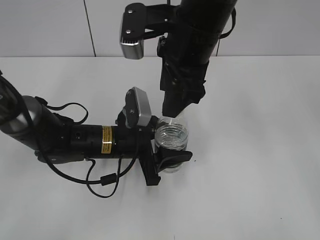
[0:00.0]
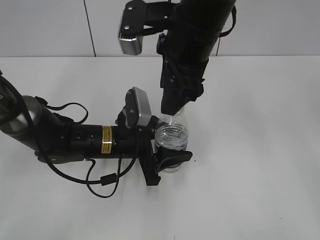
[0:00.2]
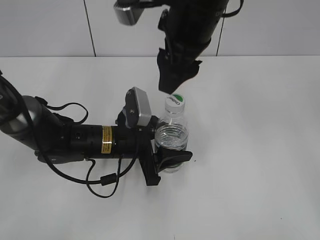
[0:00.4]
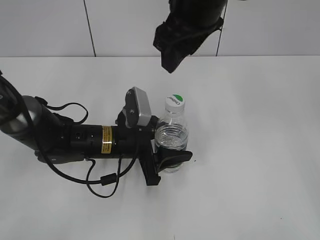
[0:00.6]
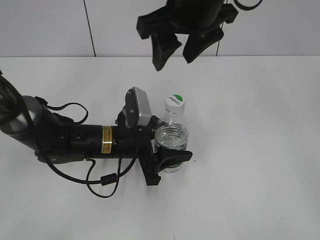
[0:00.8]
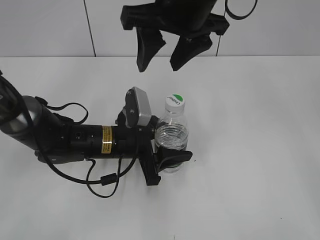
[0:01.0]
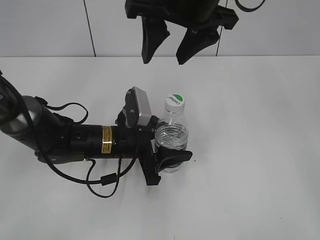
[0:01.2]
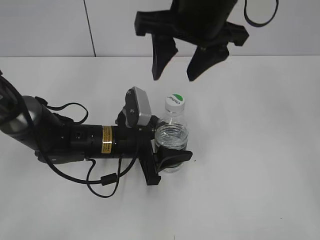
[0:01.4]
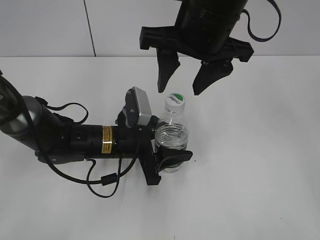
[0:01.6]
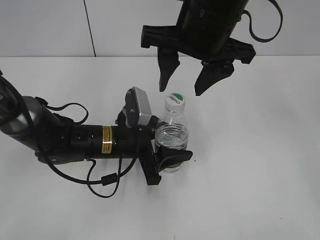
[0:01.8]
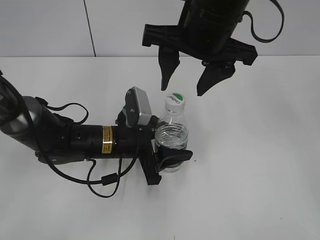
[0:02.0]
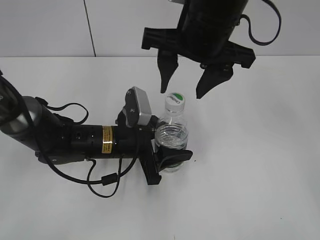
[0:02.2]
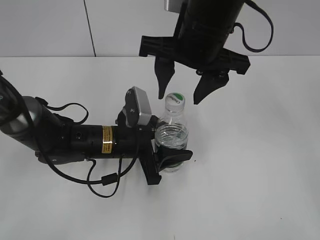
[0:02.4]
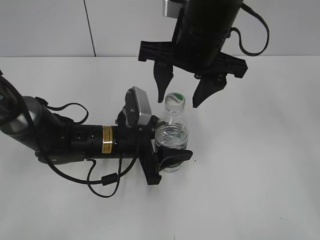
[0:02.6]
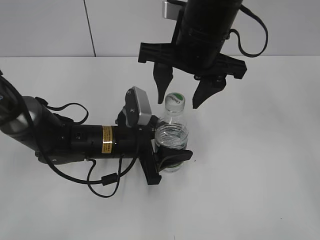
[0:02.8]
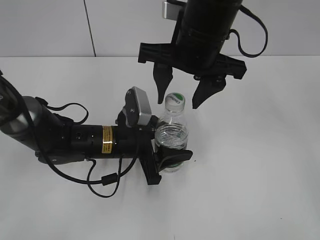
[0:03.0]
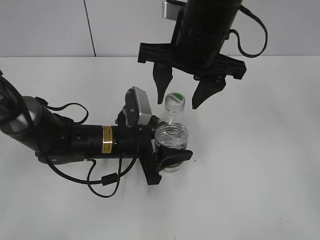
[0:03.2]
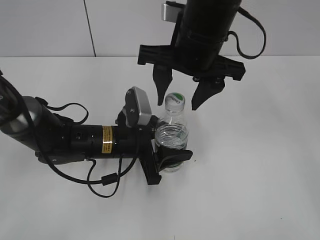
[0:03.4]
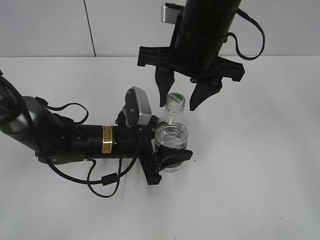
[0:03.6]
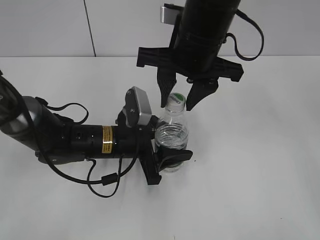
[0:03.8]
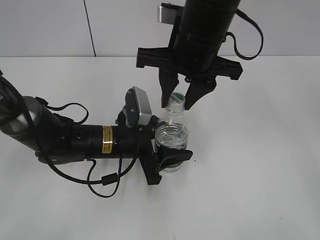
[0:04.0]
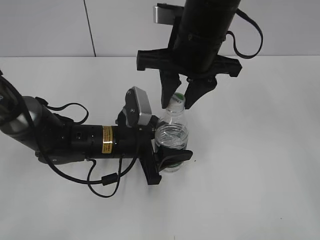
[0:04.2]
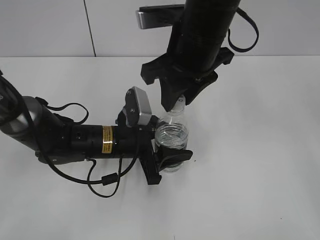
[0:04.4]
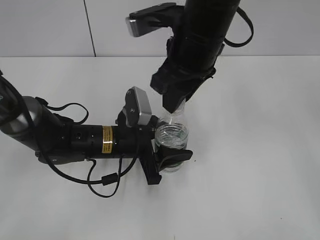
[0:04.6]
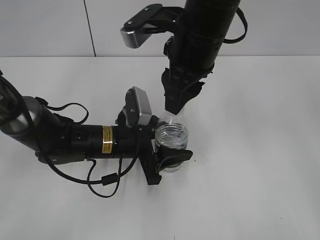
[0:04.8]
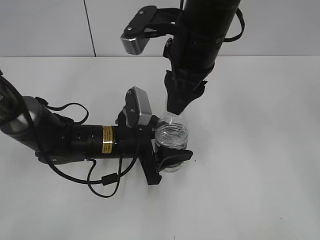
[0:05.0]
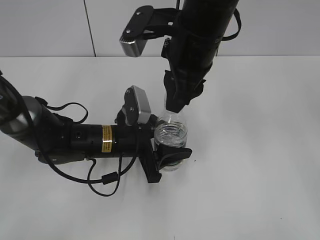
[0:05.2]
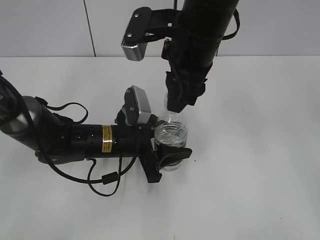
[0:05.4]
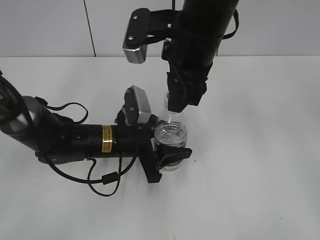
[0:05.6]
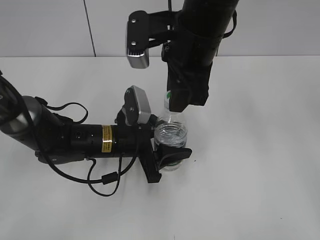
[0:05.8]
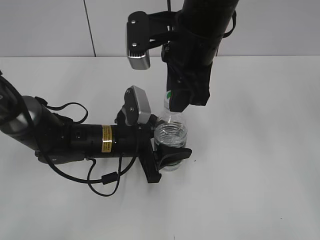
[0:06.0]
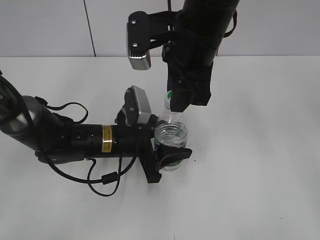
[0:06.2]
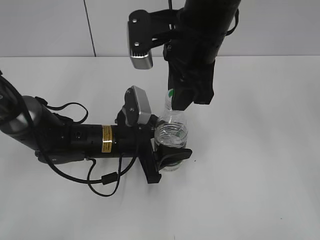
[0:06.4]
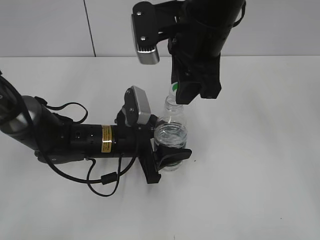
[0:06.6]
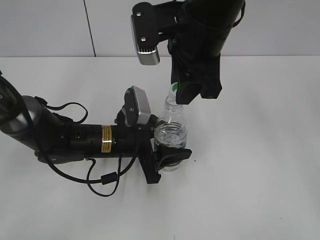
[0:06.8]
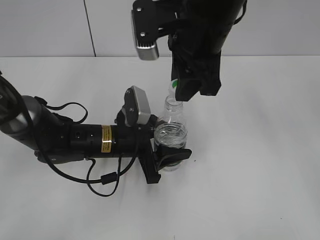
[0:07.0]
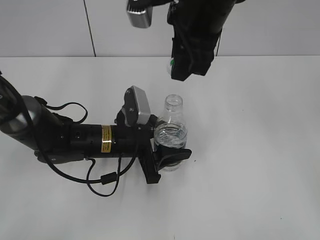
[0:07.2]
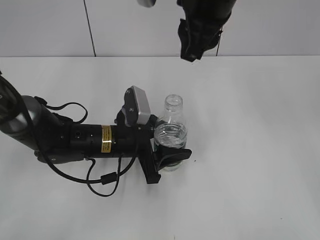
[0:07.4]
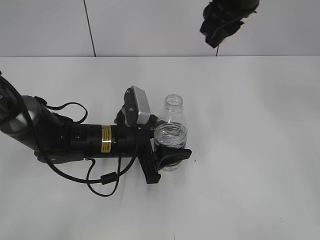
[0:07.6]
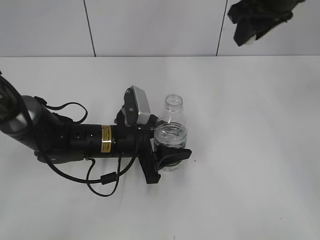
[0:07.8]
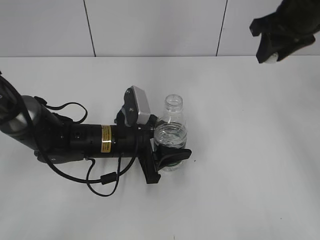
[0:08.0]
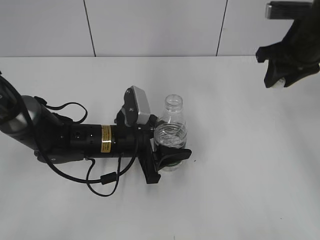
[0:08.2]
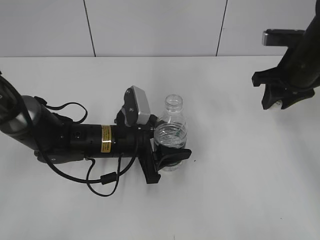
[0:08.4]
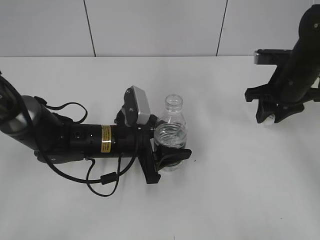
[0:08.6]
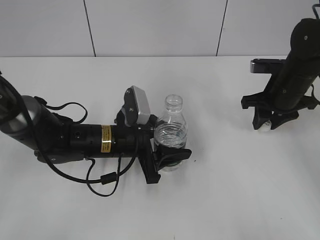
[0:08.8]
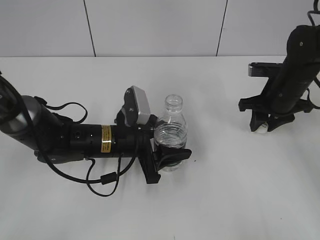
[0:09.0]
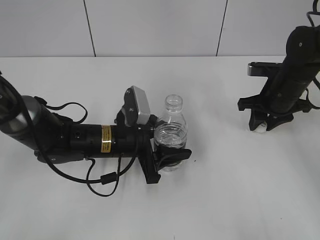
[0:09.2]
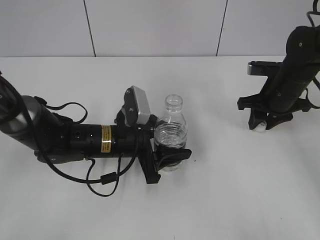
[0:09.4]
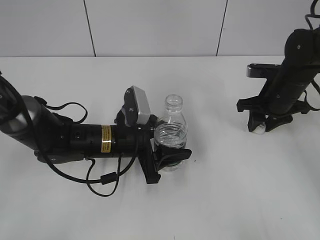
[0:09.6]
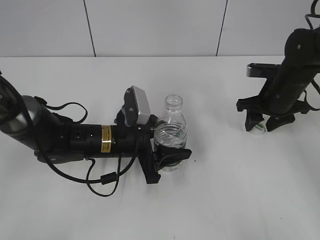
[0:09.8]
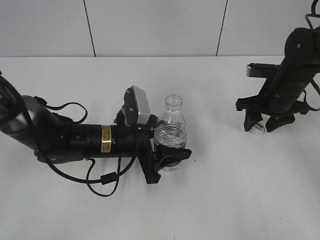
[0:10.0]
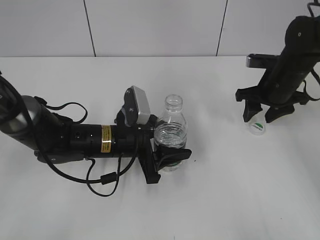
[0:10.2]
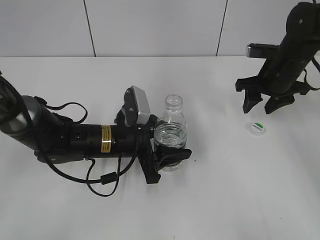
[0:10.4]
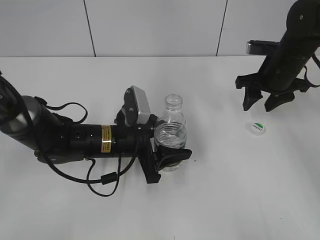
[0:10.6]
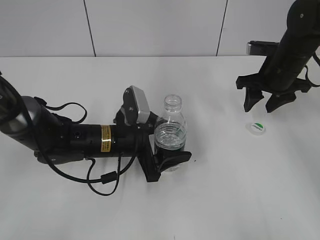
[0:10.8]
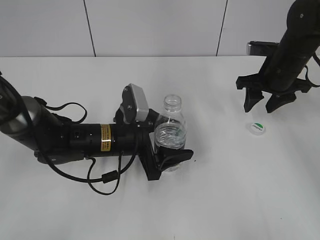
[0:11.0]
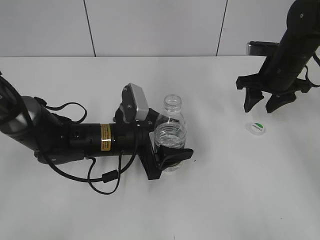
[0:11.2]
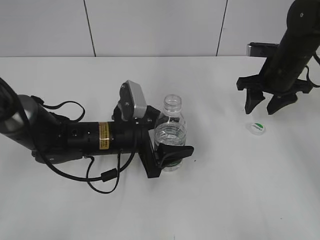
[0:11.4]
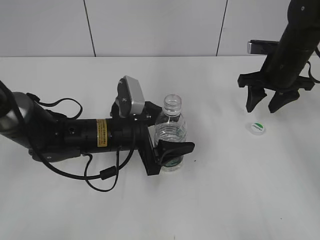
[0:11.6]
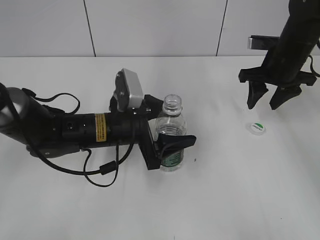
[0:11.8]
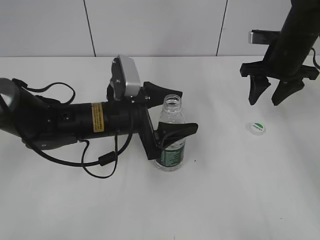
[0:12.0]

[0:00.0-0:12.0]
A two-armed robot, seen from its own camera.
Step, 0:00.0 to 0:07.0: Unscrew the bottle cap with the right gripper while holding the bottle with the left gripper.
Step, 0:07.2 to 0:10.2: Place the bottle cap on the table with the right gripper.
0:01.6 to 0:03.0: The grippers make only small movements.
0:03.0 to 0:04.4: The right gripper closes up.
0:06.0 to 0:07.6: The right gripper shifts about 10 cm upward and to the right.
0:07.6 to 0:09.0: The right gripper goes some 25 cm downward and to the right.
0:09.0 to 0:10.4: The right gripper opens up.
0:10.4 to 0:12.0: The left gripper is displaced upward by about 5 cm, and opens.

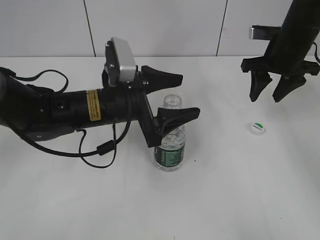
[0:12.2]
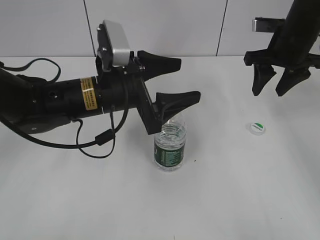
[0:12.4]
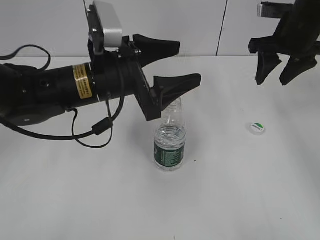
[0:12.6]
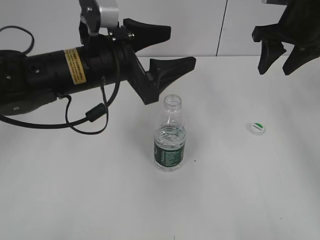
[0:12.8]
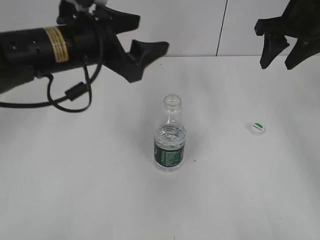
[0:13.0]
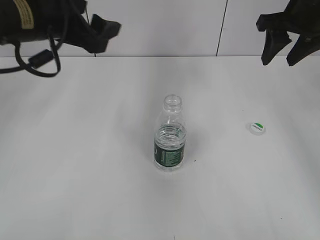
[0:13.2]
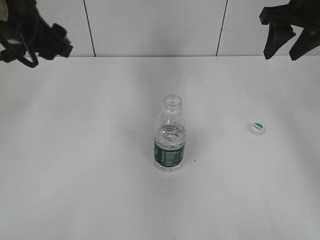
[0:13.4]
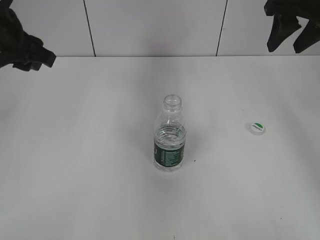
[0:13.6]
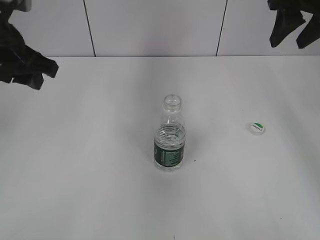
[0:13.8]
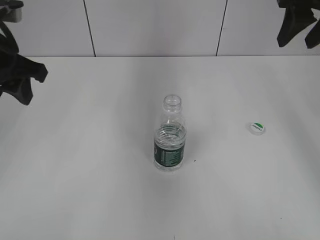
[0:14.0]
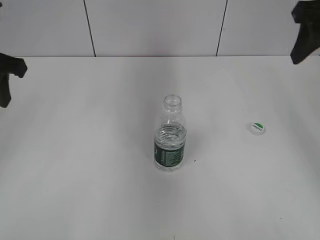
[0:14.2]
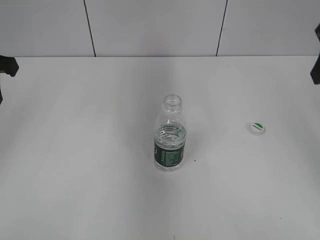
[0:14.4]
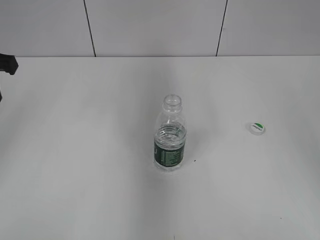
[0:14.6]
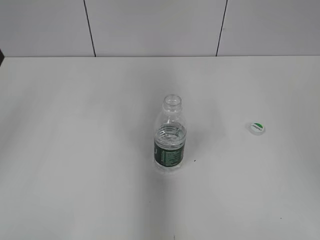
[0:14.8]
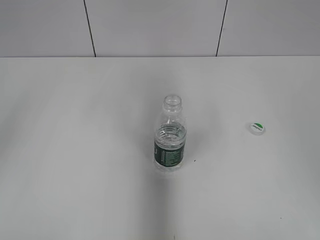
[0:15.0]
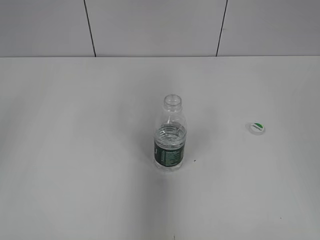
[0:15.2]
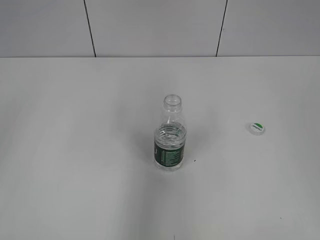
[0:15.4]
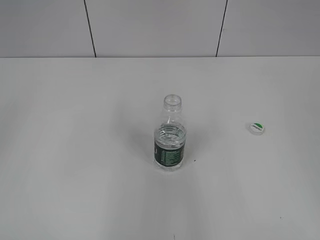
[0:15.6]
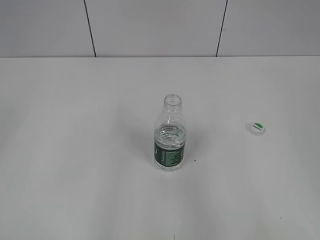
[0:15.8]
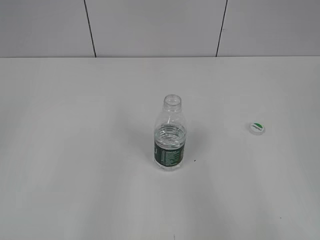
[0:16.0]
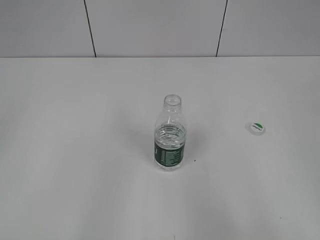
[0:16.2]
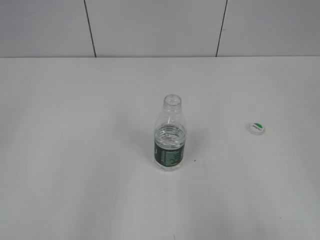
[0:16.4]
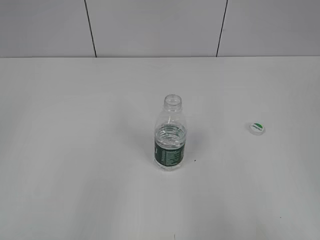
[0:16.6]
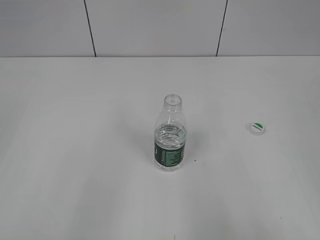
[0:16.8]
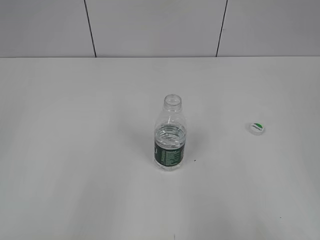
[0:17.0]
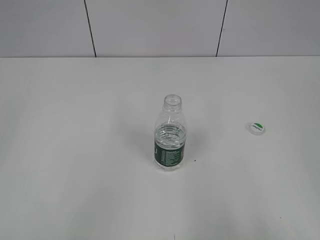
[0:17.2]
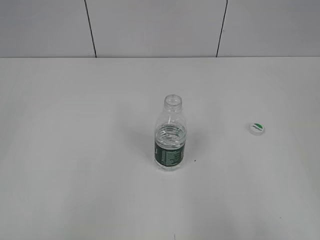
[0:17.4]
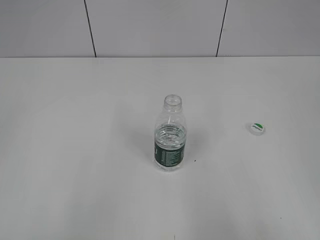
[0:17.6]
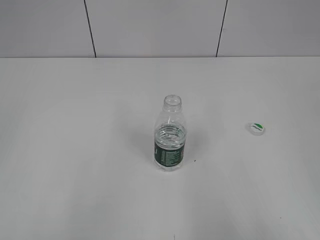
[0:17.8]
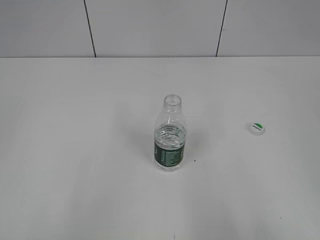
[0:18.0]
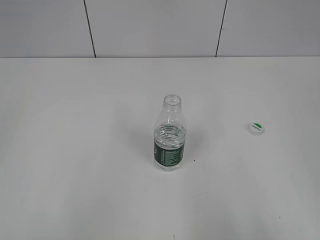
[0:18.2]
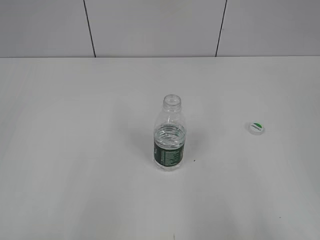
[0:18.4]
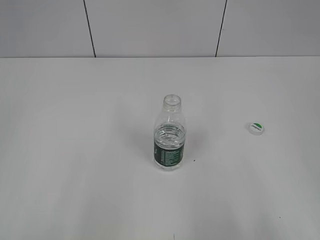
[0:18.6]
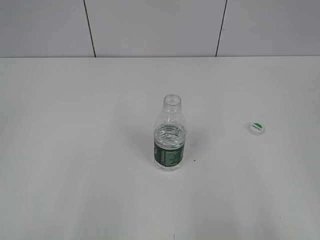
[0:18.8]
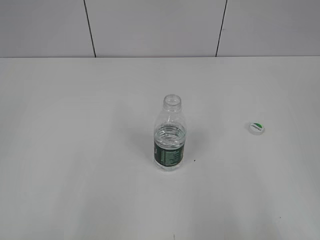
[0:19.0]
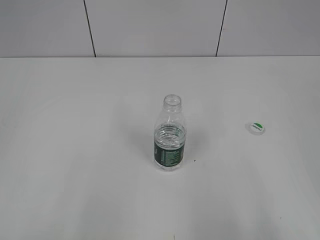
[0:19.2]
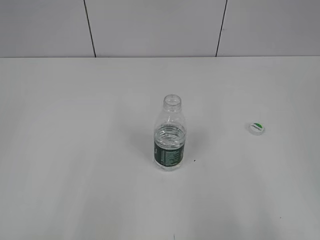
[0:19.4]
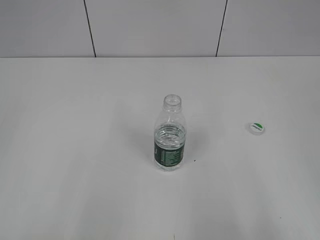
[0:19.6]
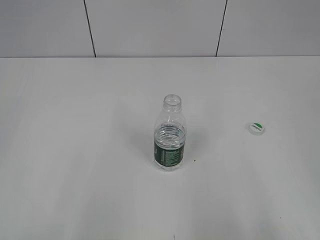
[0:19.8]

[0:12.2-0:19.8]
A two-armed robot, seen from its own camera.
0:12.2 to 0:13.8: The left gripper shifts approximately 20 cm to the left and upward, and closes its fingers, while the right gripper moves upward, about 10 cm.
0:13.8 to 0:15.2: The right gripper is displaced backward by about 25 cm; the left gripper travels backward and to the left by some 15 cm.
0:15.2 to 0:16.8: The left gripper heads backward, covering some 20 cm. The right gripper shifts some 15 cm backward and downward.

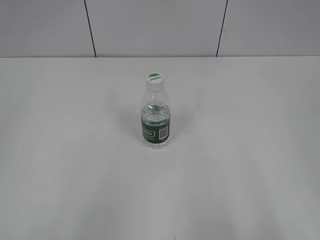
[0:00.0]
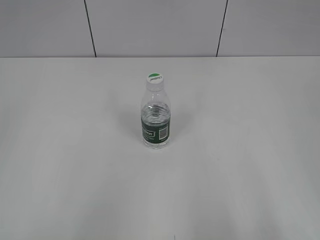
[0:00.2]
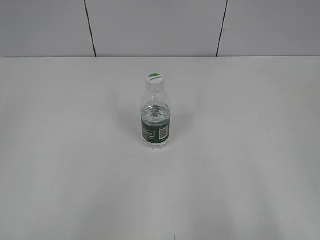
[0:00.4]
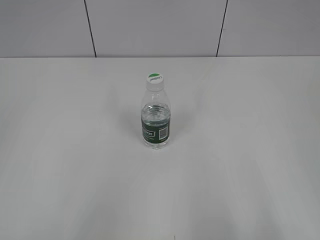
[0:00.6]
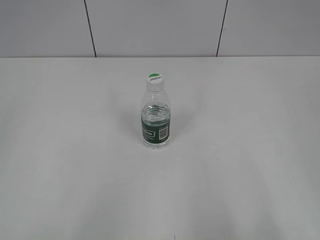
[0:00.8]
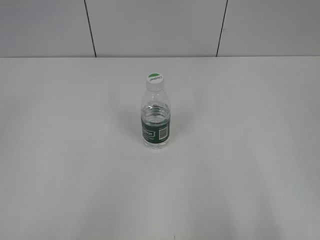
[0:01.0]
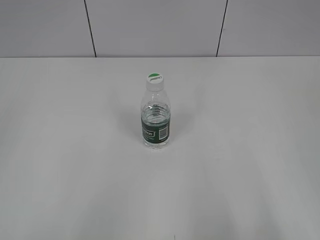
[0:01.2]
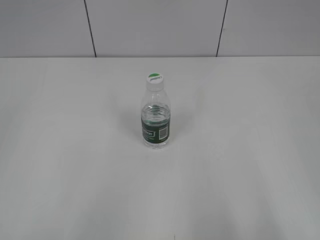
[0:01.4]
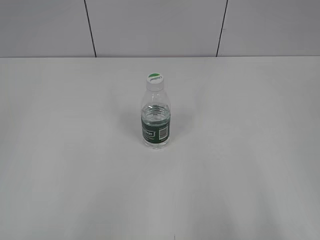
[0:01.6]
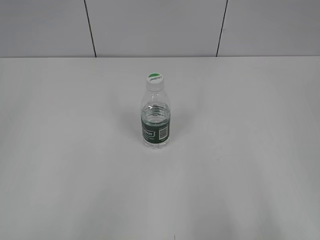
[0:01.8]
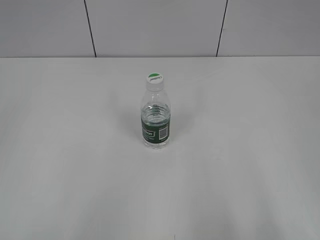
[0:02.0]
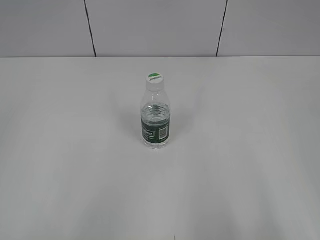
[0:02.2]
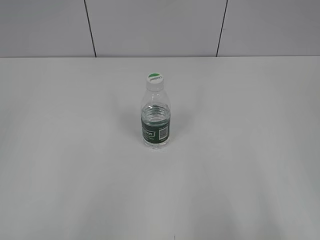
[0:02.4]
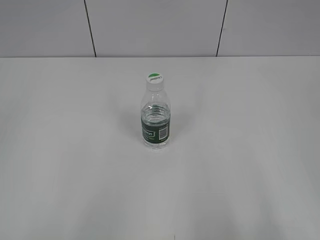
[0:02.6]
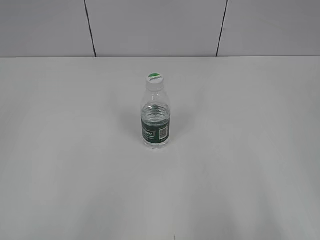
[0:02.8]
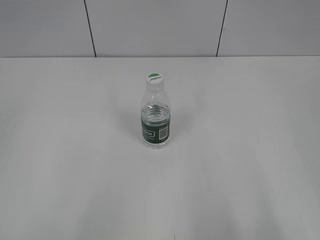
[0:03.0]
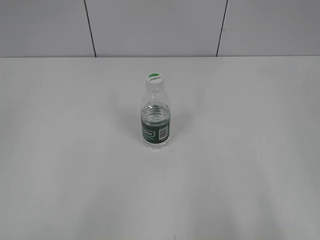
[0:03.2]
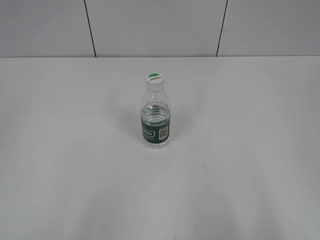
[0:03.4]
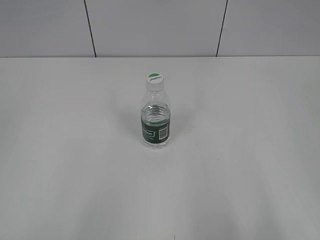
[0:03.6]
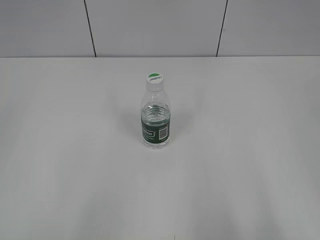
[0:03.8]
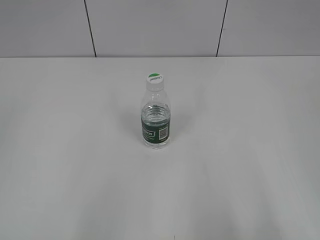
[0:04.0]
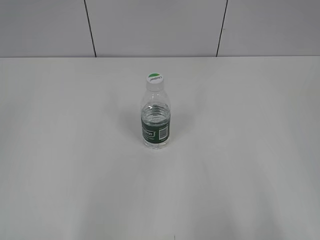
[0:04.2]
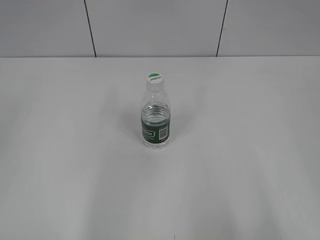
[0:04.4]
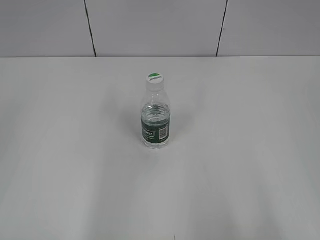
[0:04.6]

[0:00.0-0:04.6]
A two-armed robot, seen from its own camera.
0:01.6 to 0:03.0: Both grippers stay about where they are.
